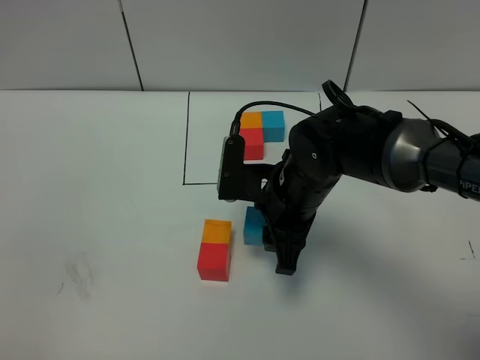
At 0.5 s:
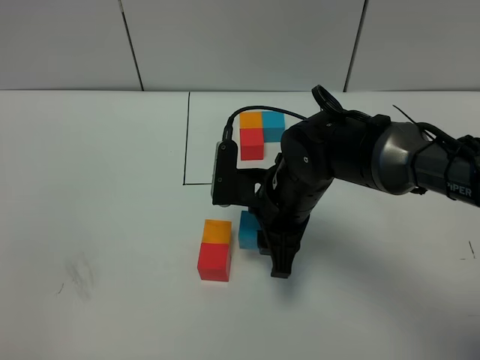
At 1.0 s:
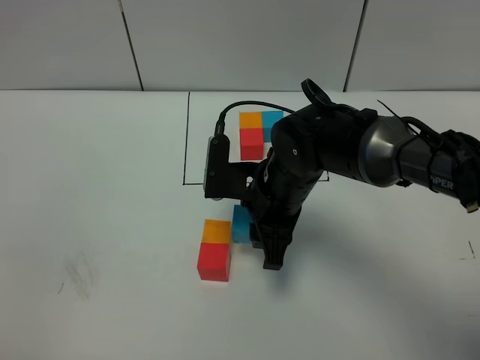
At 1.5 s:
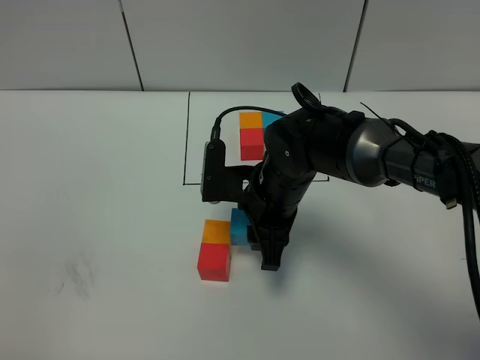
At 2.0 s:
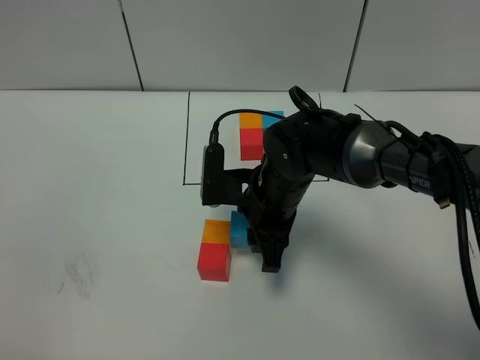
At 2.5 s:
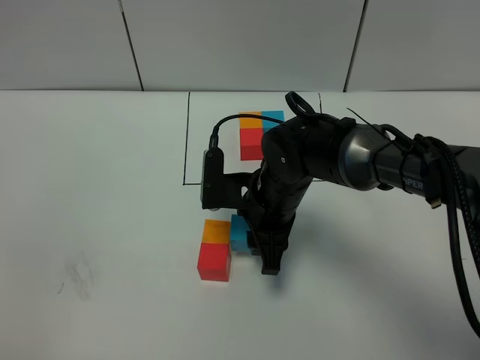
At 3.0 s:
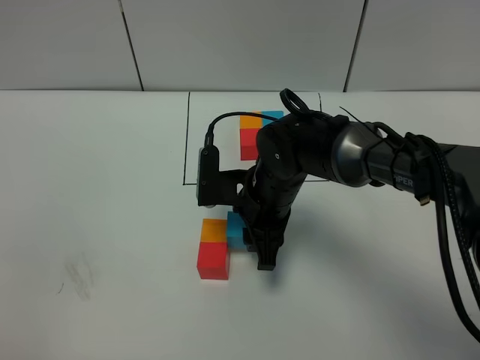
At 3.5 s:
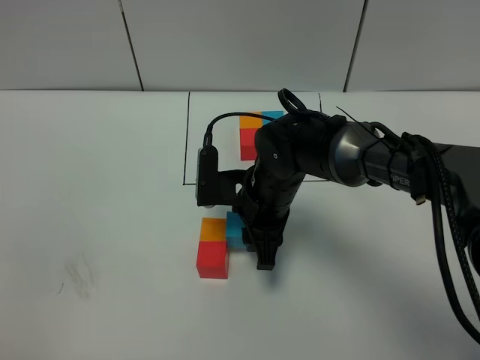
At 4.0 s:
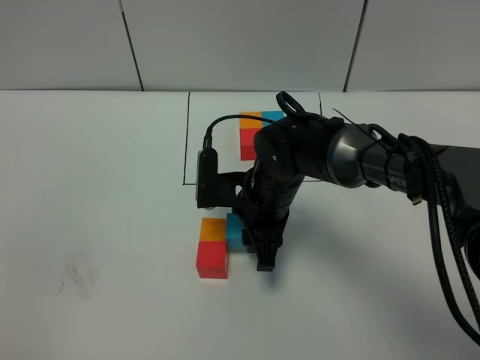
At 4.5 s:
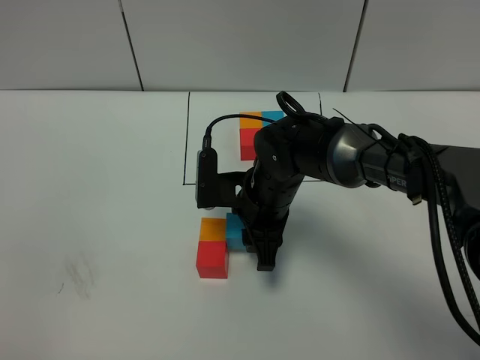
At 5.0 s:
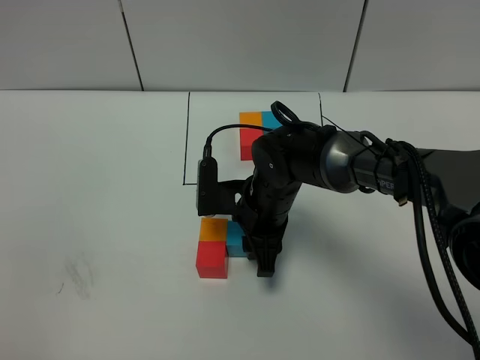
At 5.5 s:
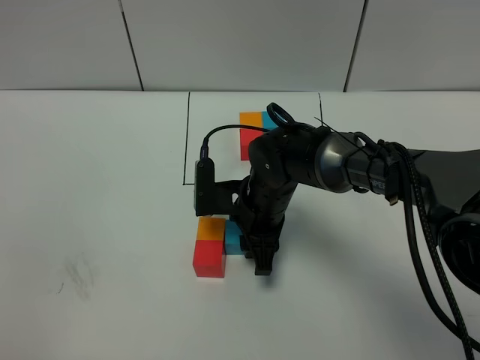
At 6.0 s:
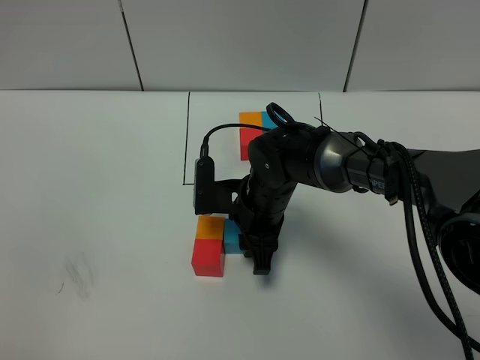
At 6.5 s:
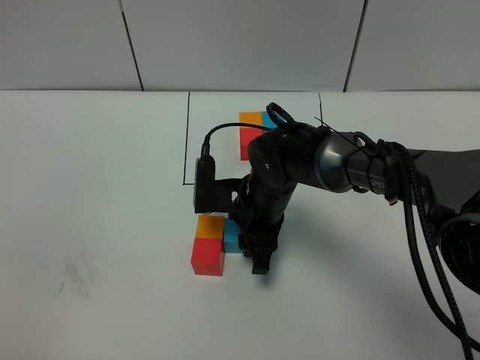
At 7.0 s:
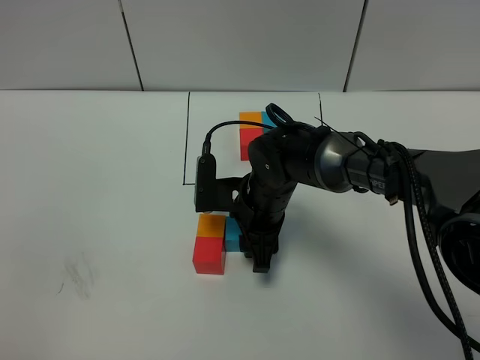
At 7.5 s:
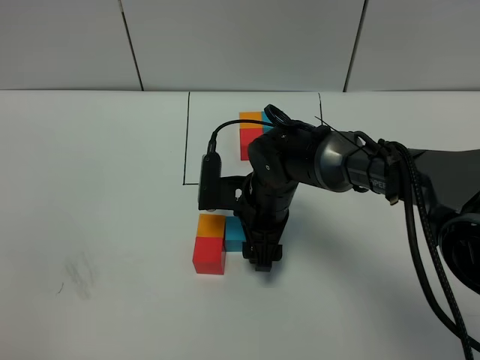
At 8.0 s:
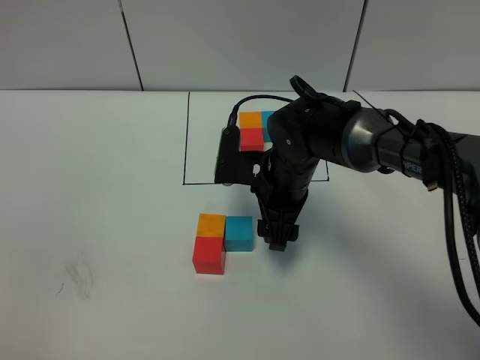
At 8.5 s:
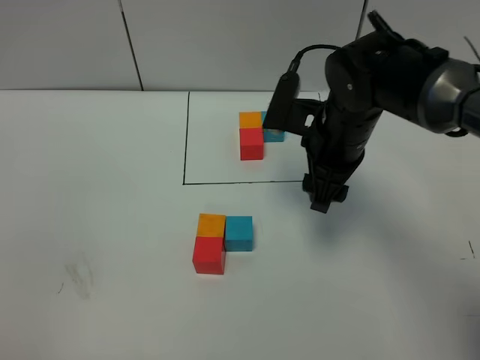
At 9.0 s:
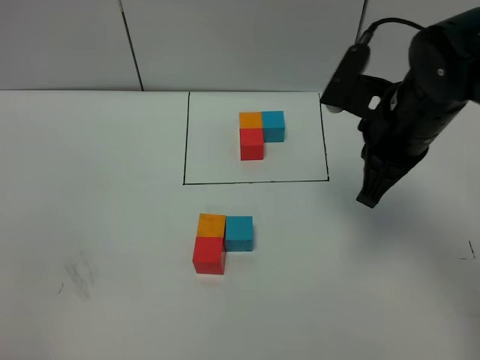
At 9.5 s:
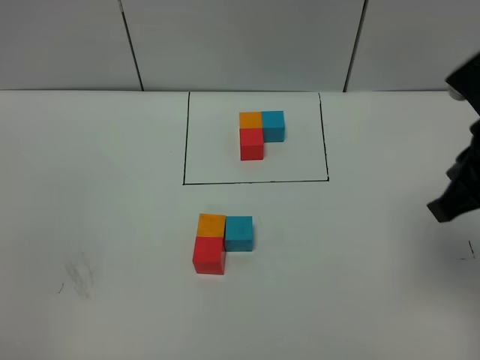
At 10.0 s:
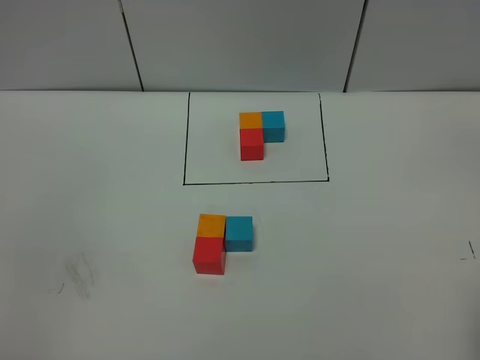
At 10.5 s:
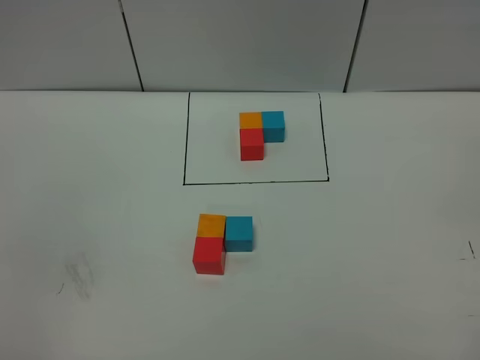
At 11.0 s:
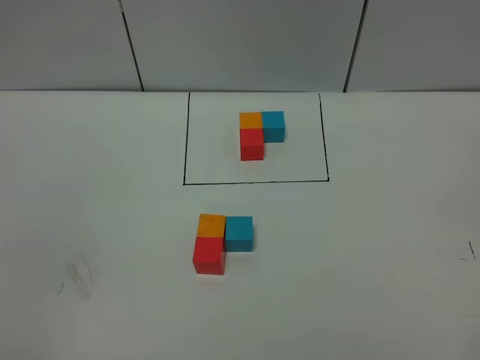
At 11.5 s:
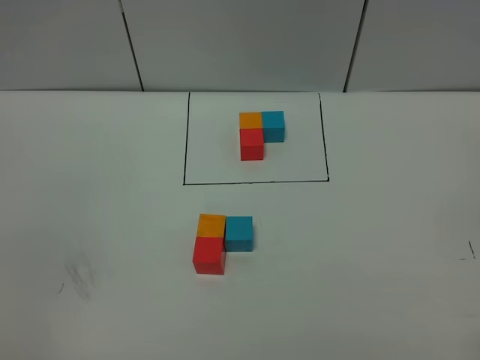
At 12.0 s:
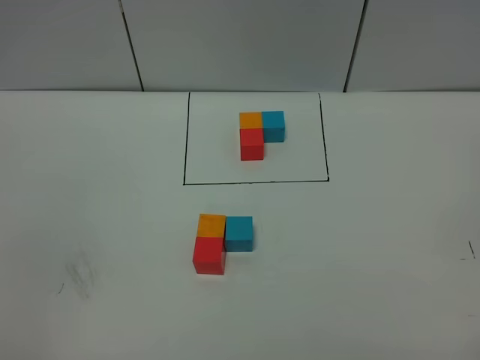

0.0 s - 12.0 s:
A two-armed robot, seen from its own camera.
Task of the whole recording: According to the building block template in front, assemble the scattered blocks together.
Step, 0.0 s - 7.5 s: Put the blue cube on the right of the orange cube.
0.0 s - 4.0 s: There are only small adjustments of the grippers.
4.0 s - 6.0 s: The grippers make only small movements.
6.0 s - 8.0 s: The right gripper changes place by about 5 cm, and opens.
8.0 s - 10.0 s: The right gripper travels backward, to the right and upward by roughly 40 cm, and closes its fingers.

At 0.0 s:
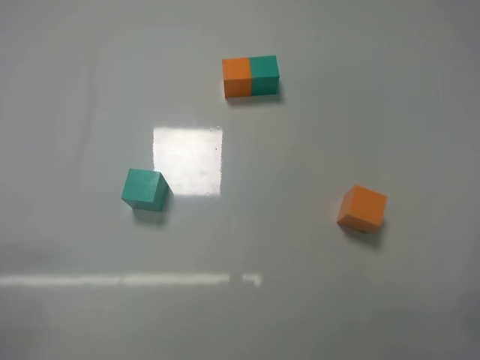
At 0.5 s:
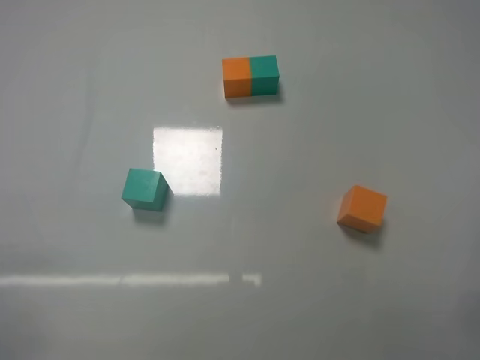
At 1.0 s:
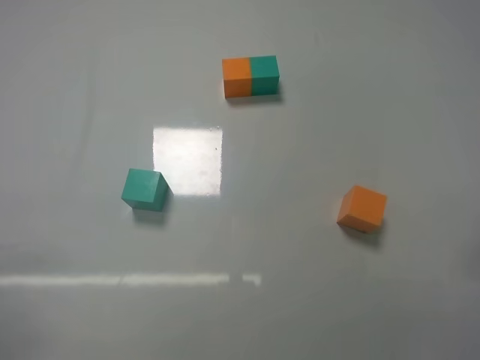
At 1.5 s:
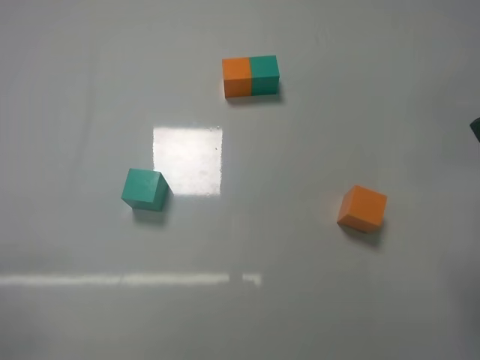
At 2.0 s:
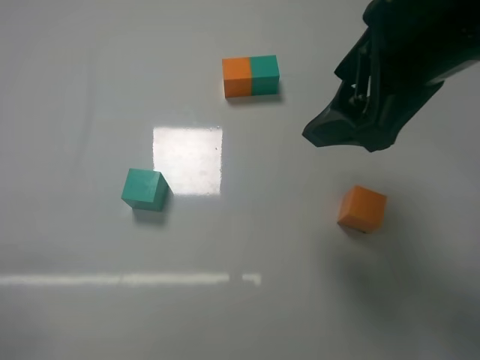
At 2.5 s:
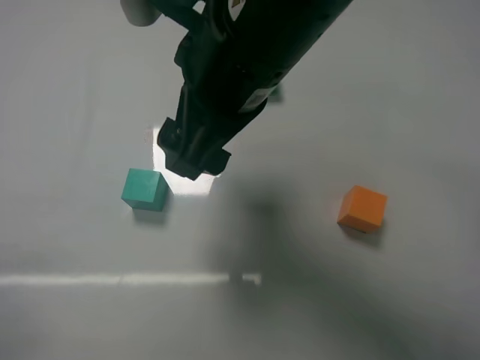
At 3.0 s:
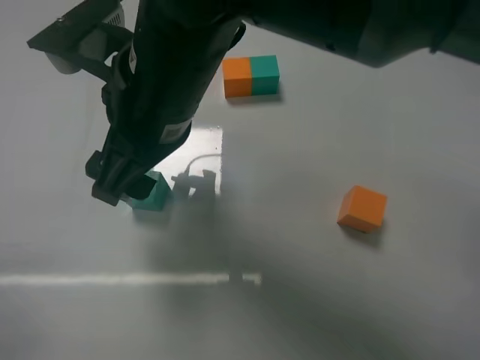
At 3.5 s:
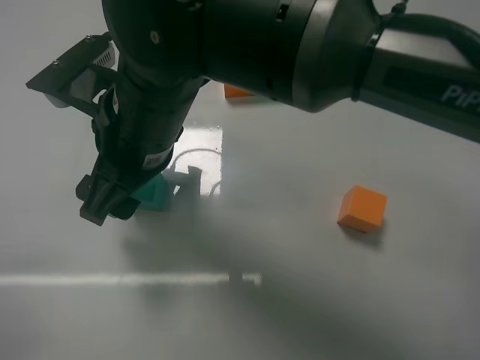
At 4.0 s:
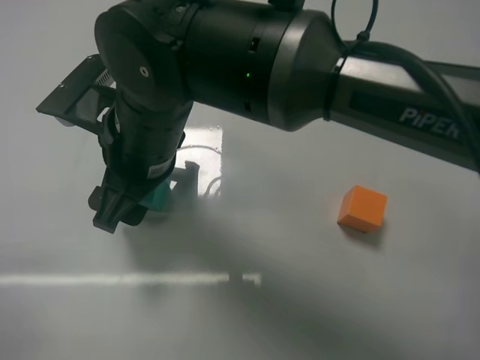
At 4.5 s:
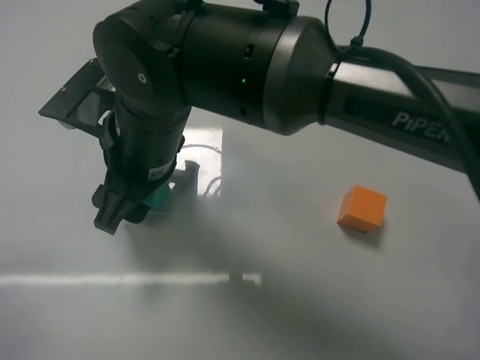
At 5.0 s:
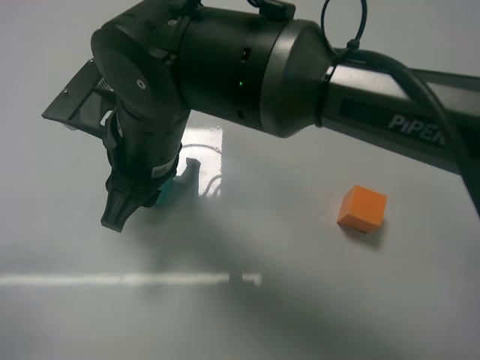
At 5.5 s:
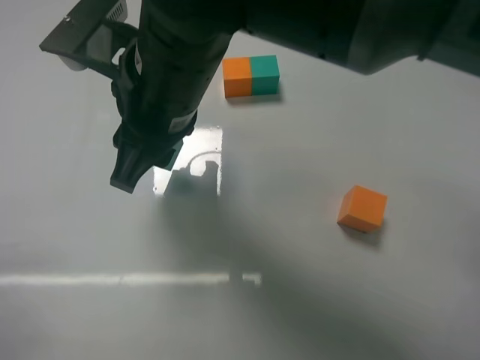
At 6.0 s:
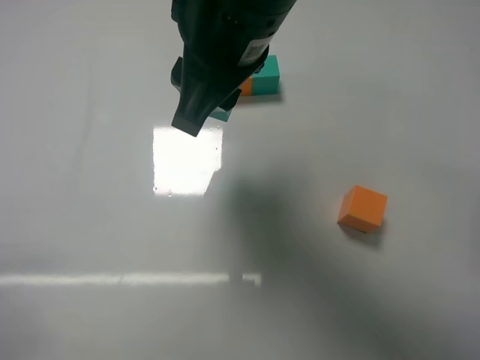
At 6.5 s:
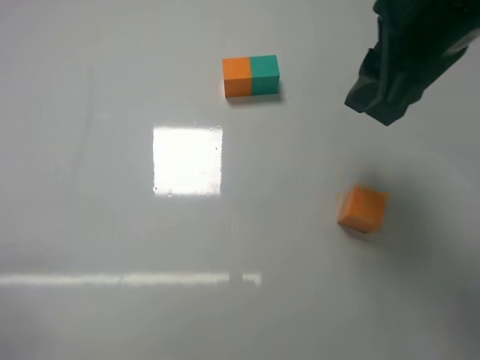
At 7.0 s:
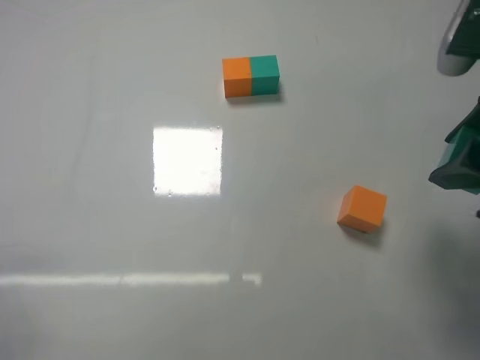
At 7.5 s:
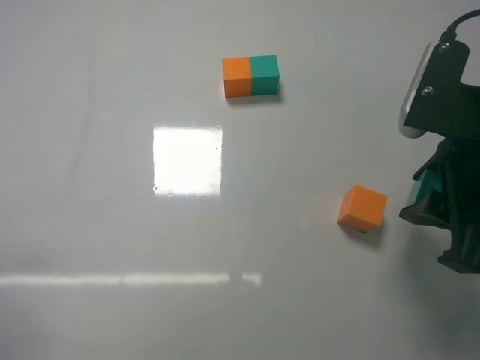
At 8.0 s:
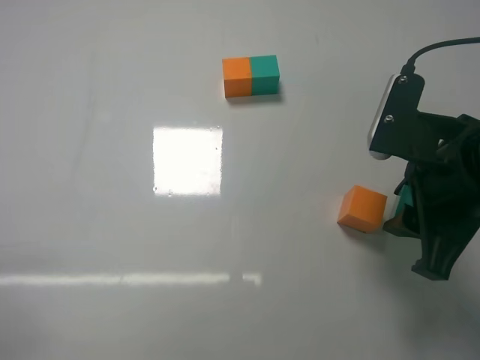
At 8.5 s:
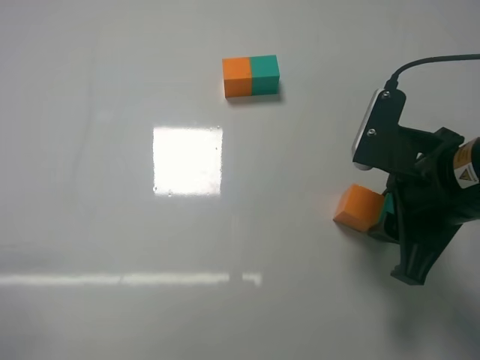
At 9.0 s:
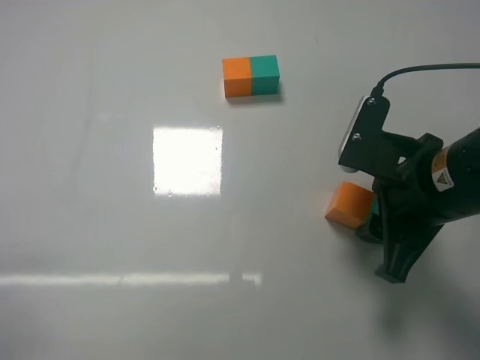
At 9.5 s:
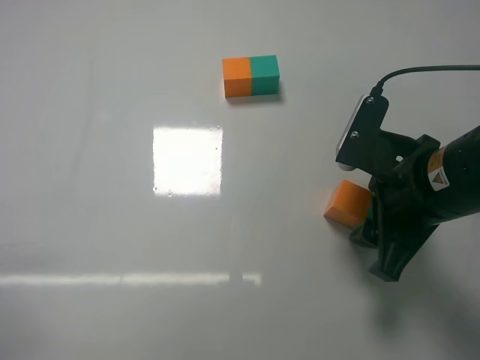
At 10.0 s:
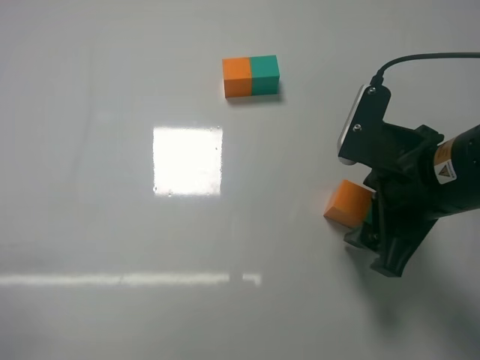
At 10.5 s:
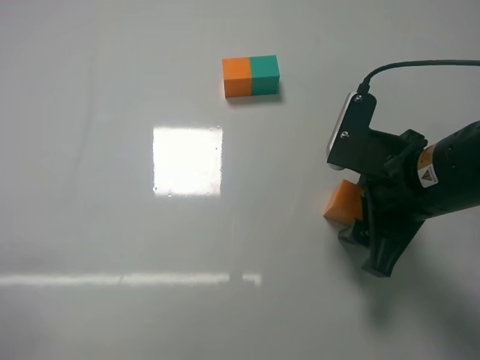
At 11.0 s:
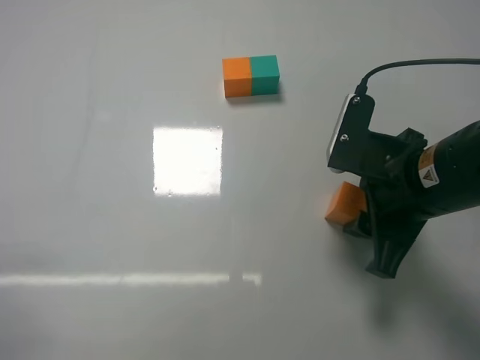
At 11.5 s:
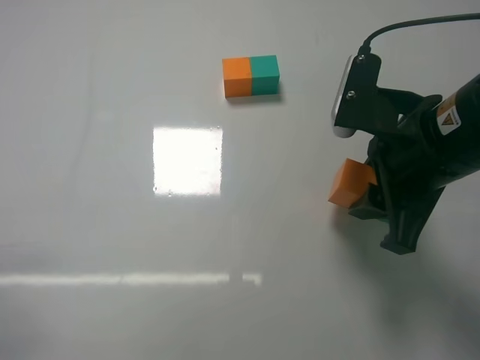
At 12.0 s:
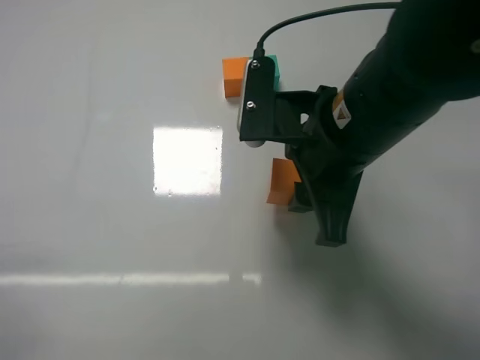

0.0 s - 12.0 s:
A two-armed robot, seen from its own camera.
Task of the whole recording: According to the building block template in front, assemble the scattered blocks together.
Step, 0.0 s - 4.5 s: Grasp the green block with right gripper.
Step, 5.0 s - 9.5 s: Put the green cube on the right of the orange cube with the right gripper.
0.0 s - 2.0 s: The right gripper heads forward, to the left and upward, covering about 30 cm.
2.0 s - 4.0 s: The right gripper travels to the left and downward by approximately 25 cm.
4.0 s - 6.0 s: The right gripper shifts some 15 cm upward and to the right, and closes up.
6.0 s - 8.0 s: The right gripper heads to the right and downward, covering roughly 20 cm.
8.0 s - 10.0 s: The right gripper opens up.
10.0 s - 12.0 s: The right gripper travels to the left by some 10 cm, and closes its fingers.

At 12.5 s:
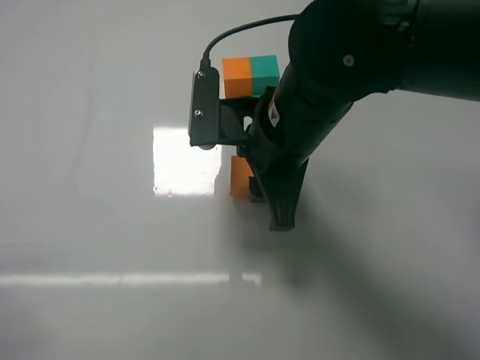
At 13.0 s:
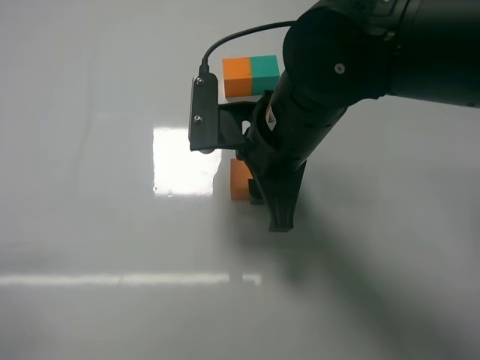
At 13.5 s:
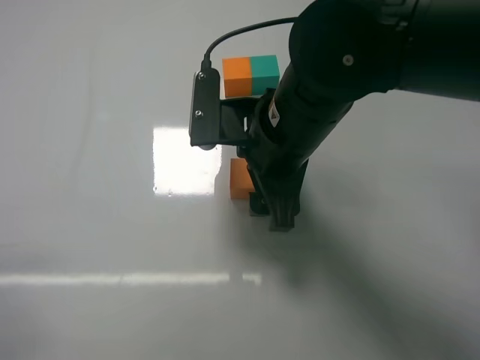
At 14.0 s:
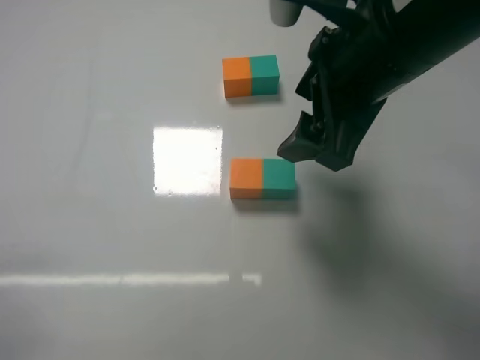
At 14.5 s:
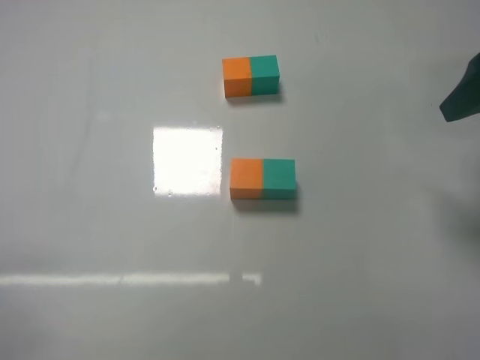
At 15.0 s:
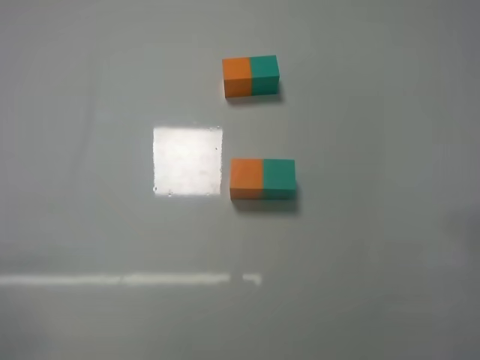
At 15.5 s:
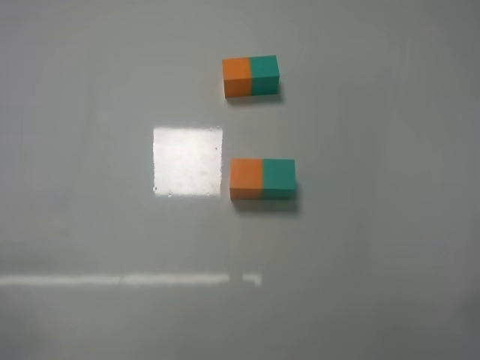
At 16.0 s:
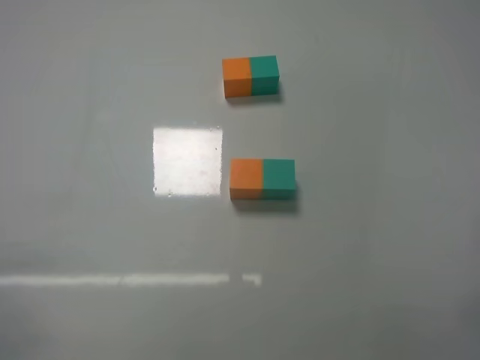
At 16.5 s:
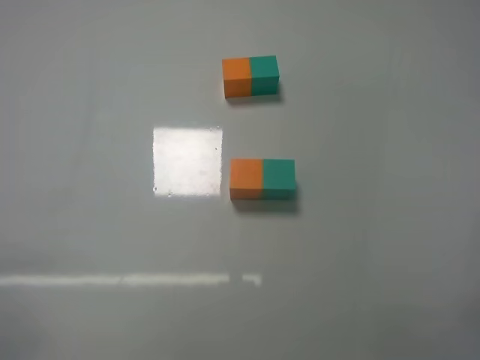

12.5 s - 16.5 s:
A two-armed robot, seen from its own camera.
Task of the whole recording: According to the building block template in front, assemble the scattered blocks together.
12.5 s - 14.5 s: The right gripper is displaced to the right by roughly 25 cm, and opens its fingers.
14.5 s - 16.5 s: The right gripper goes some 25 cm backward and downward.
